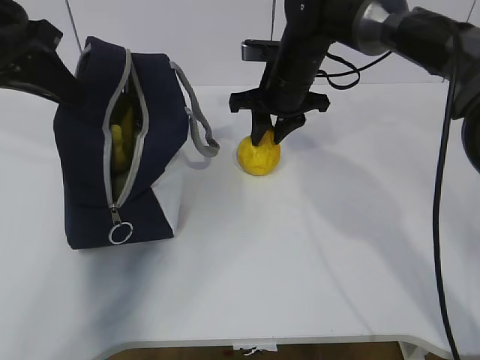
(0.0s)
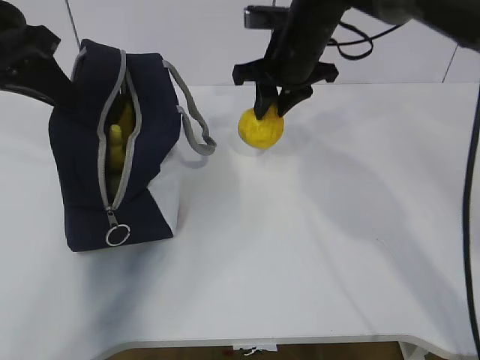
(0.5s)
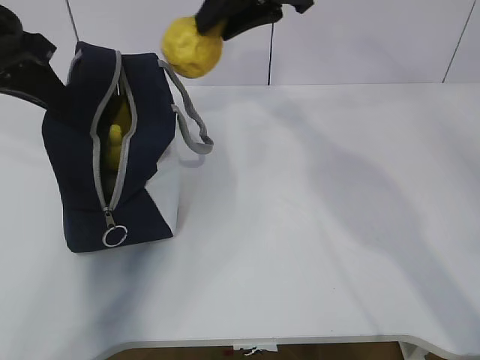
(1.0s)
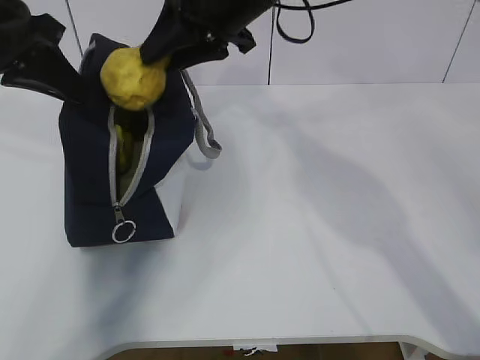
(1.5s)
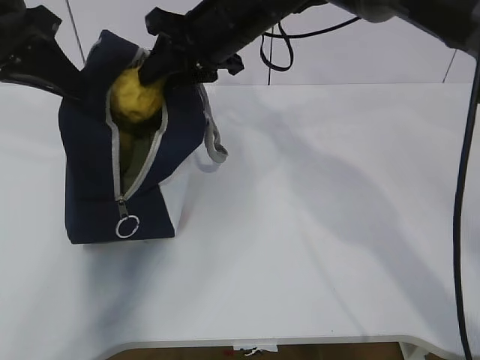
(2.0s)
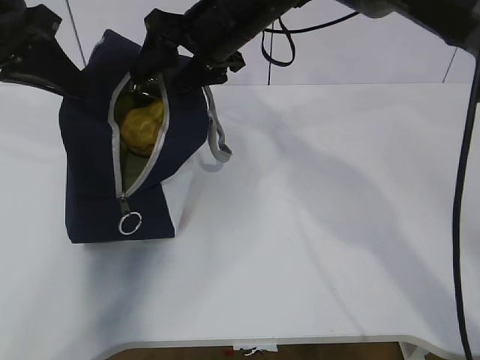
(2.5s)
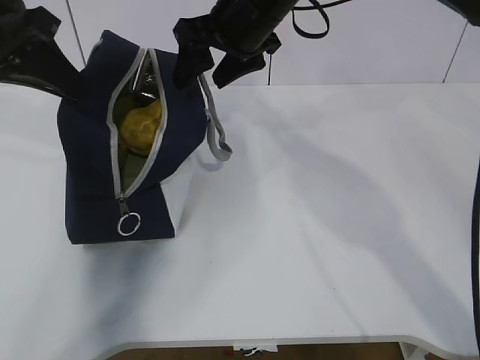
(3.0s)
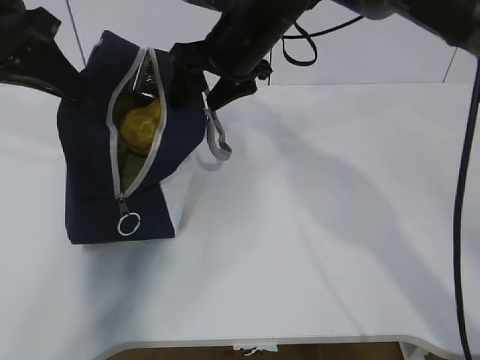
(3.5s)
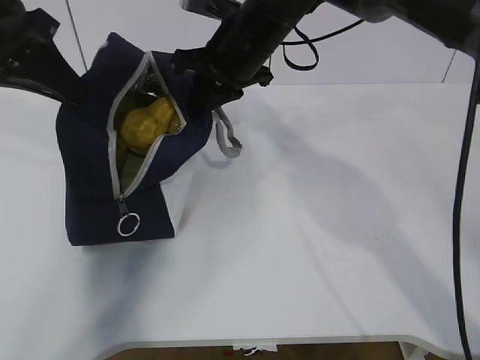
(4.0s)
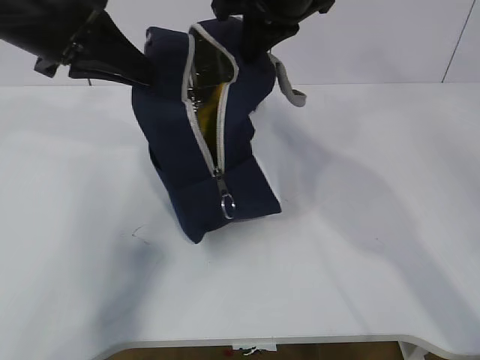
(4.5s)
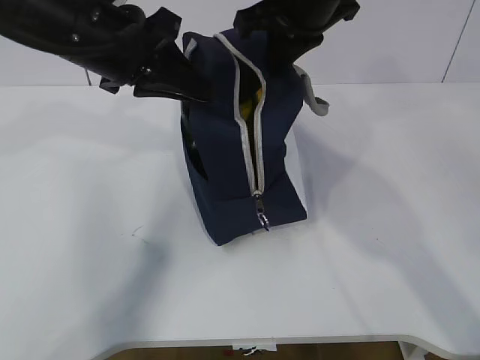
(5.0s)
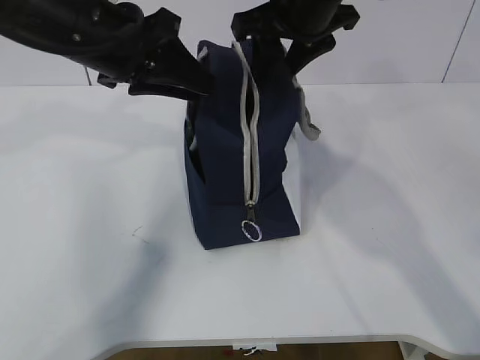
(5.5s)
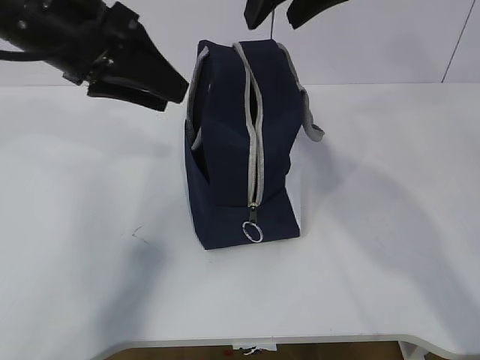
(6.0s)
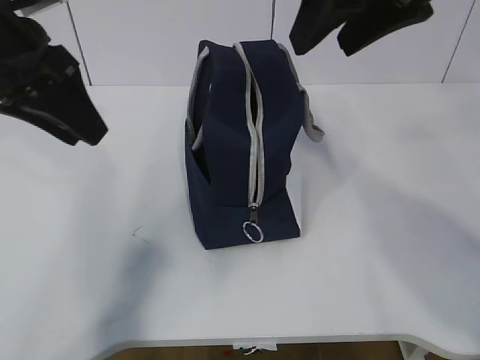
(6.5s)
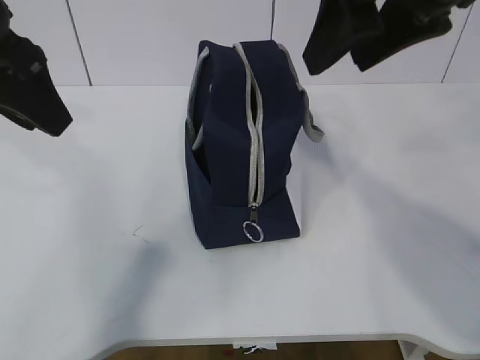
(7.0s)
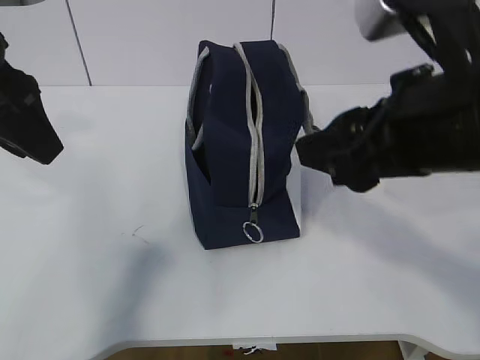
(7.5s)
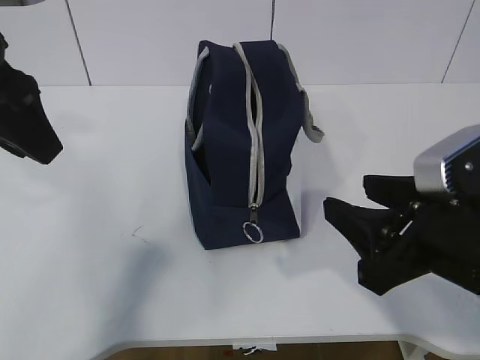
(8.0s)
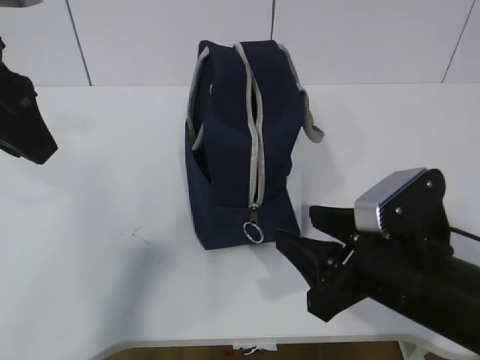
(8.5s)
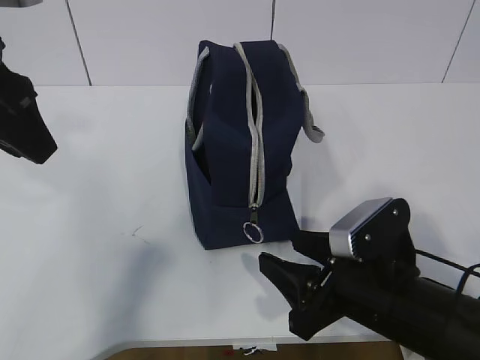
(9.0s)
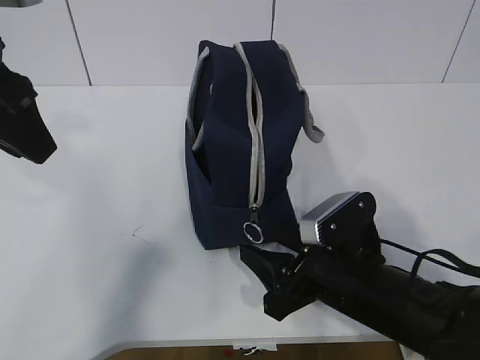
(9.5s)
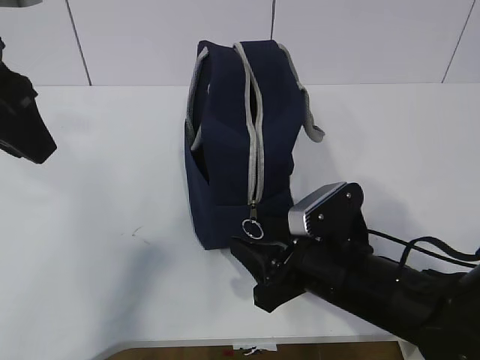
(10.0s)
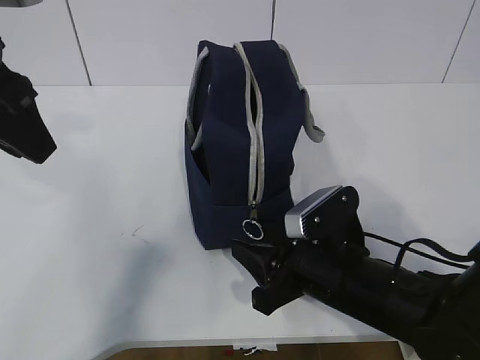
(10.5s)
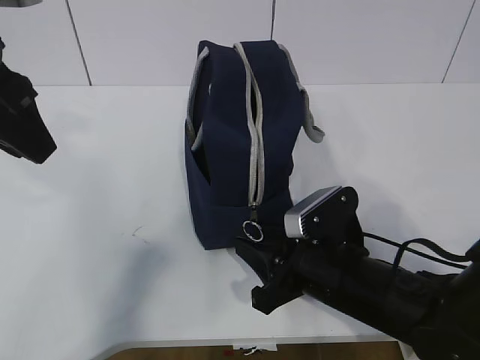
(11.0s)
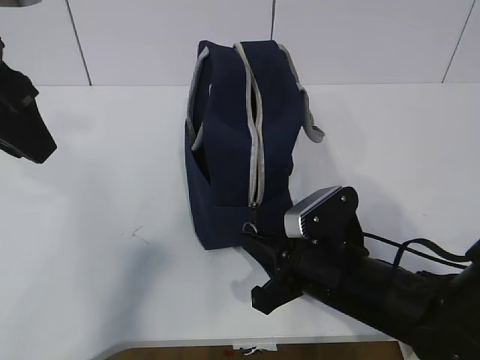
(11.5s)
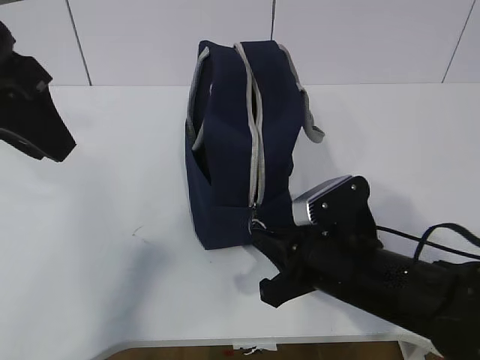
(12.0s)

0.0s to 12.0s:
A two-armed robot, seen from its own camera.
Step, 1.0s to 10.0s: Grab the lunch bag with your left hand.
0.0s to 2.0s: The right gripper is displaced upward and to the left by about 10 cm.
2.0s to 4.0s: The right gripper closes.
4.0s to 6.0s: The right gripper goes roughly 15 cm upward, backward and to the right, and opens. Meanwhile the left gripper goes approximately 5 cm to the right, and opens up.
6.0s to 8.0s: The left gripper travels backward by approximately 5 cm; the right gripper shifts approximately 25 cm downward and backward.
8.0s to 10.0s: The right gripper shifts approximately 15 cm downward, to the left and forward.
10.0s to 12.0s: The right gripper closes its fingers.

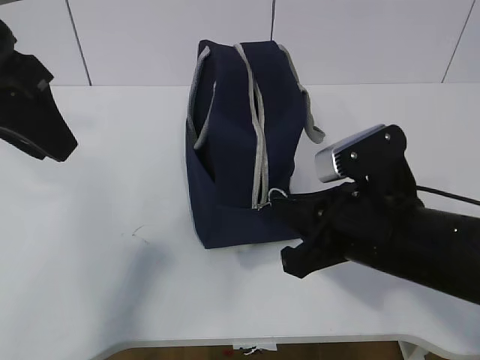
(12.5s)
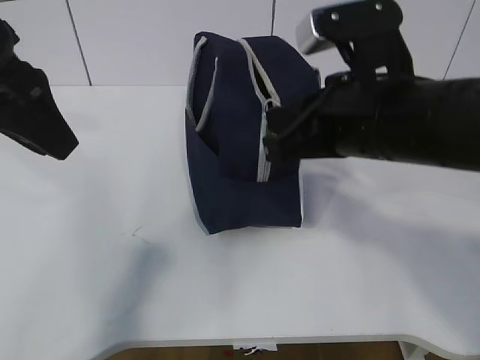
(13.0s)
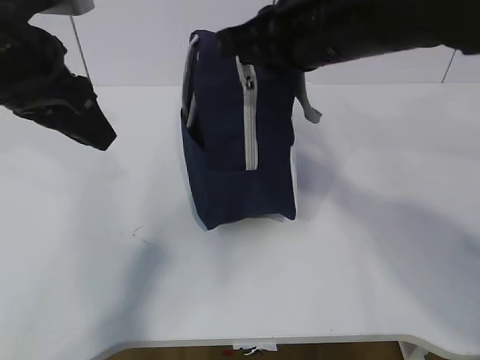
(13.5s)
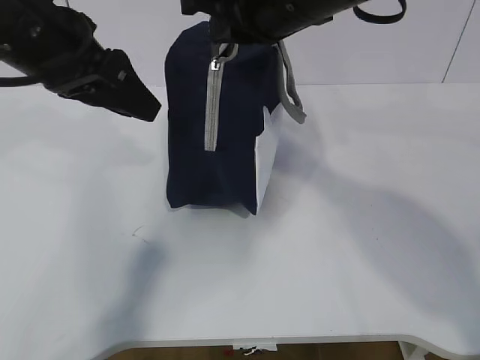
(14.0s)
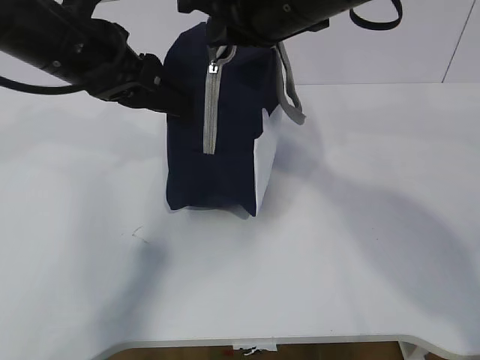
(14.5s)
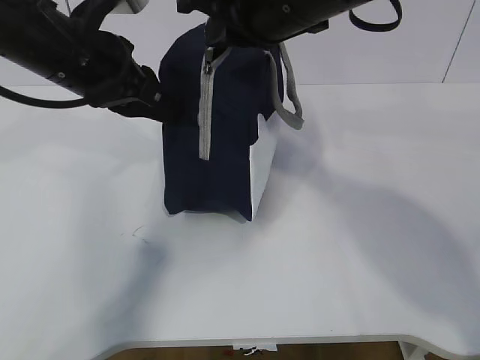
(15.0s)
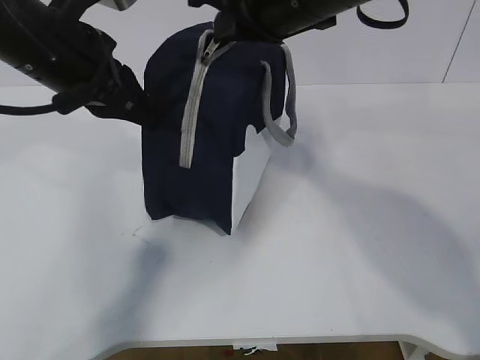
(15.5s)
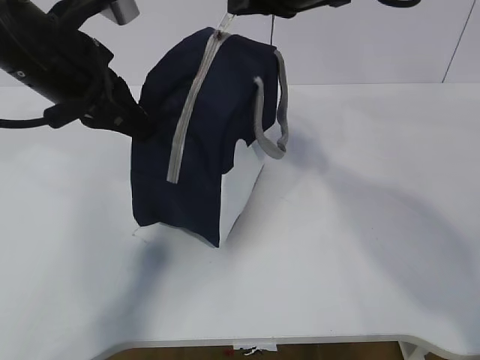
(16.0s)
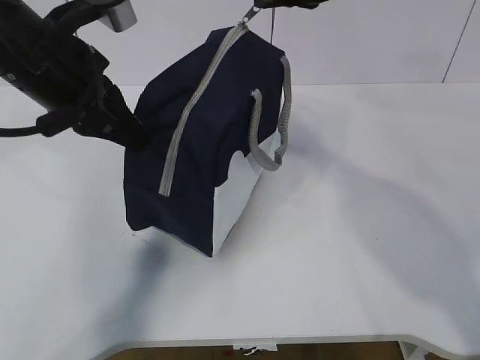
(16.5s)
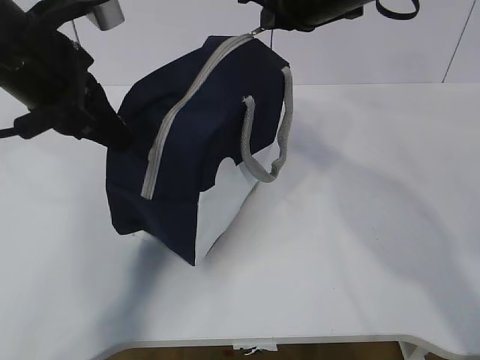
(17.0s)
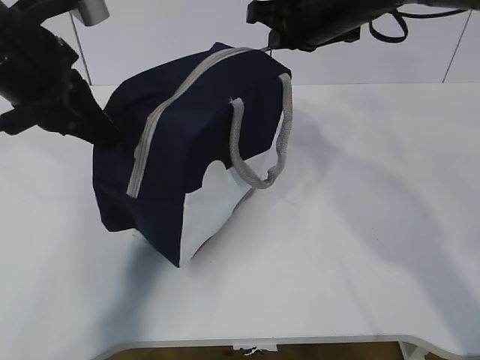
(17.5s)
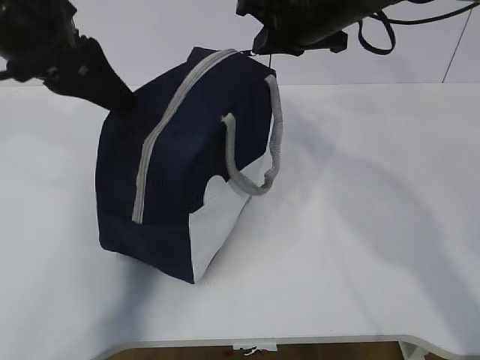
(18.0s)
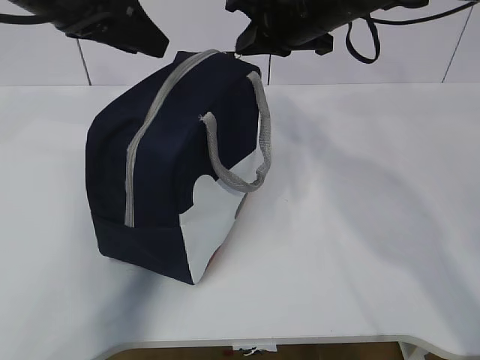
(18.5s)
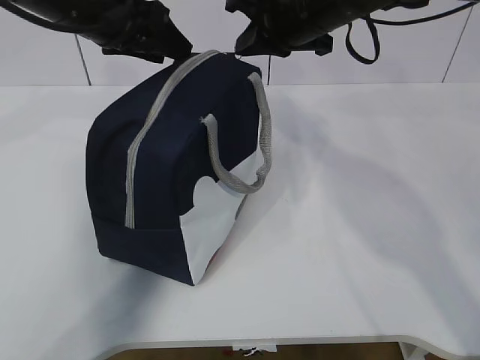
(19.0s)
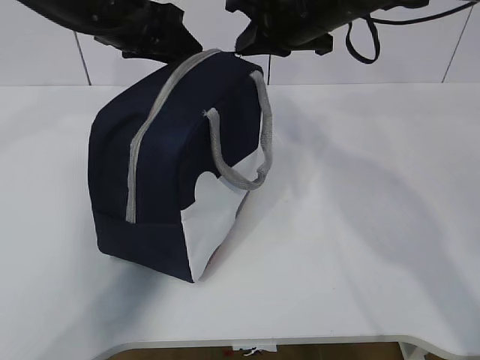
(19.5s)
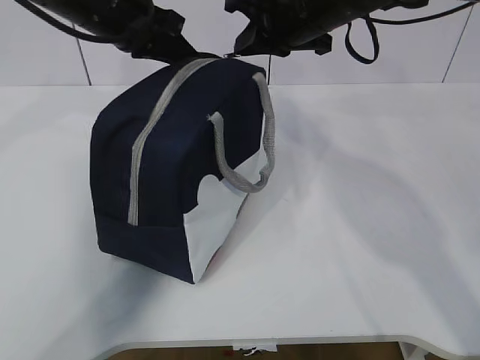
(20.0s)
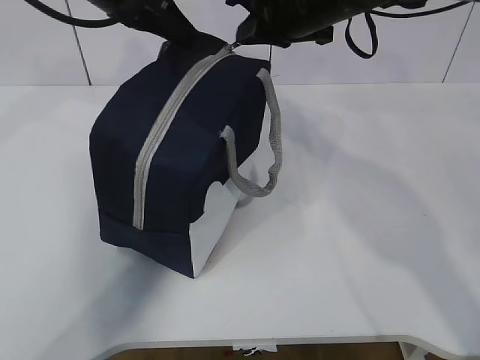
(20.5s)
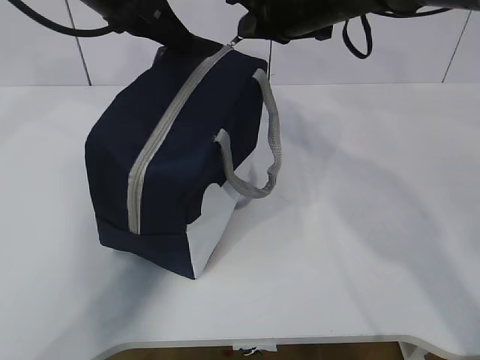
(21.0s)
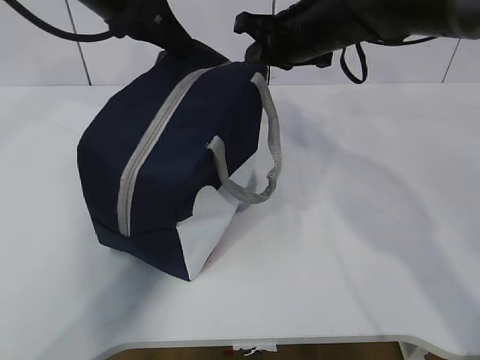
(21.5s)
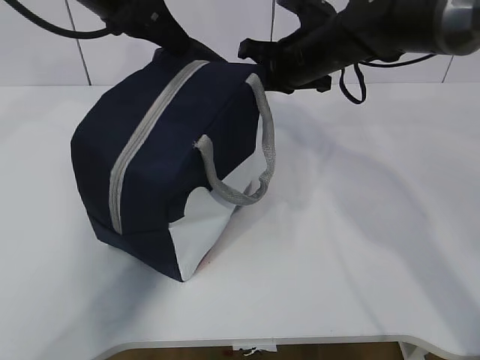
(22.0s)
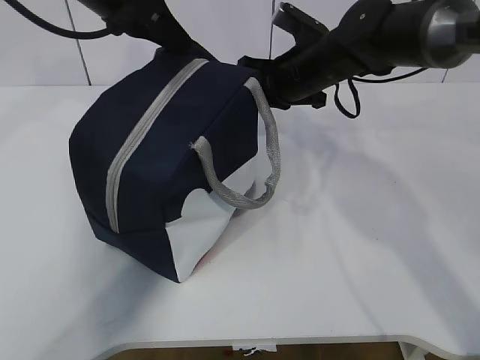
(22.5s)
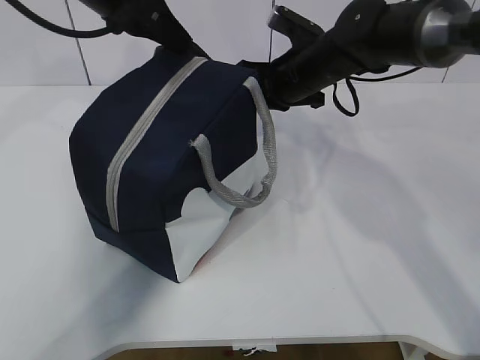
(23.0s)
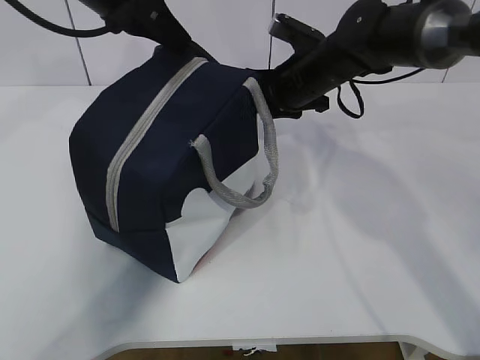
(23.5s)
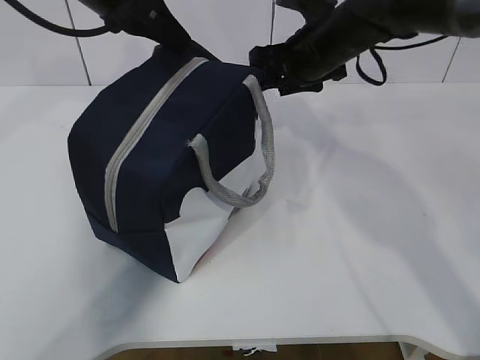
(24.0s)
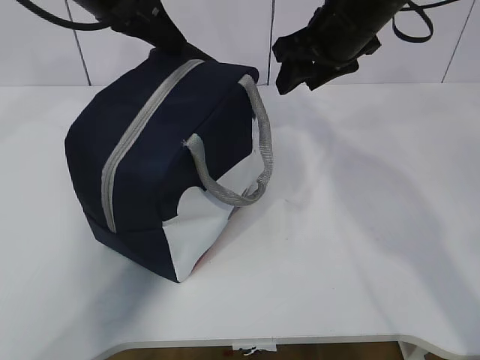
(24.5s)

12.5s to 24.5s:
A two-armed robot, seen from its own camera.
Step, 12.5s to 15.0s: Pull the zipper with your right hand.
Step, 15.5s to 16.0s: Grab the lunch bag with your left hand.
12.5s to 14.5s: The right gripper is displaced upward, forward and to the left by about 20 cm; the left gripper moves forward and downward, roughly 10 cm.
14.5s to 16.5s: The left gripper closes up. Meanwhile the right gripper moves some 5 cm.
16.5s to 18.5s: The left gripper shifts roughly 5 cm upward, and opens up, while the right gripper travels downward and forward by about 10 cm.
18.5s to 20.5s: The left gripper is displaced forward by approximately 5 cm, and closes its fingers.
20.5s to 22.5s: The right gripper travels downward by approximately 10 cm.
22.5s to 24.5s: The right gripper is displaced upward by about 10 cm, and opens up.

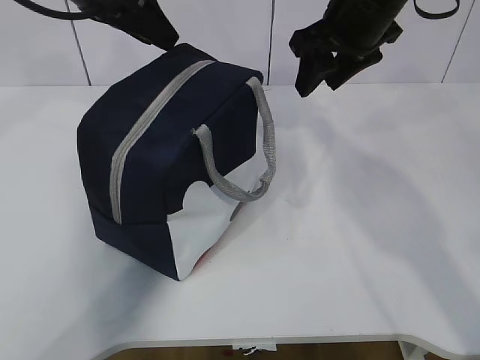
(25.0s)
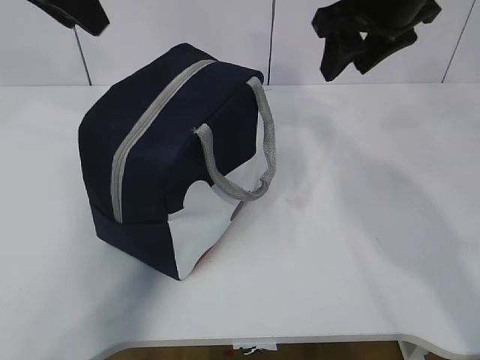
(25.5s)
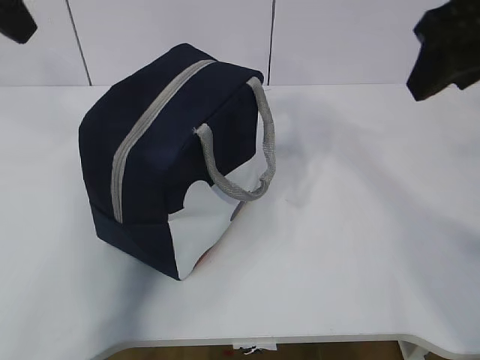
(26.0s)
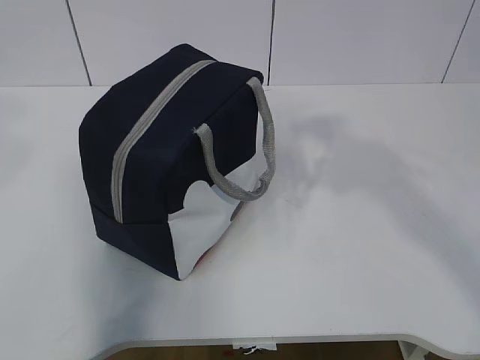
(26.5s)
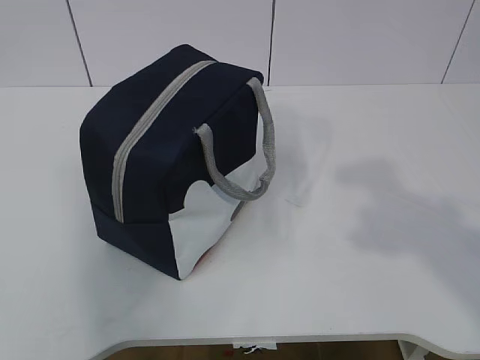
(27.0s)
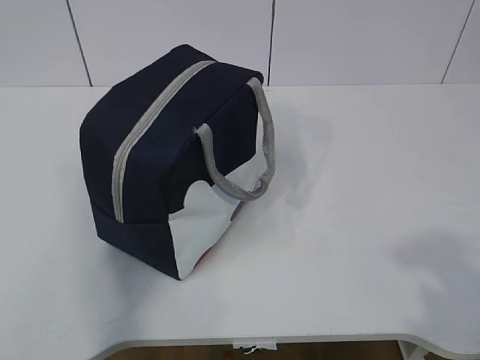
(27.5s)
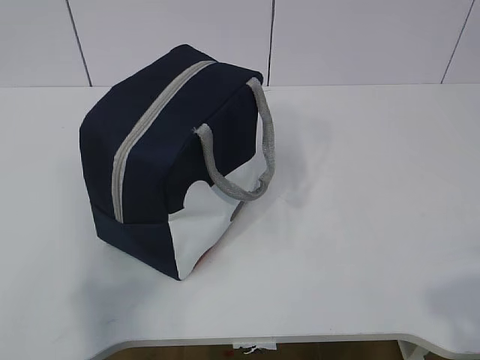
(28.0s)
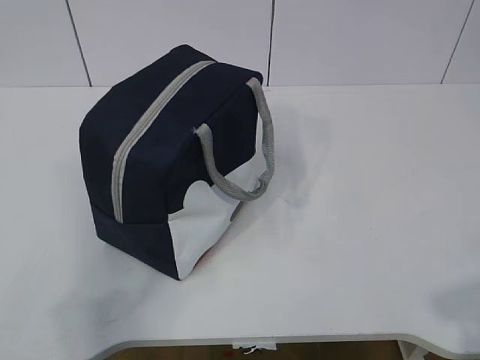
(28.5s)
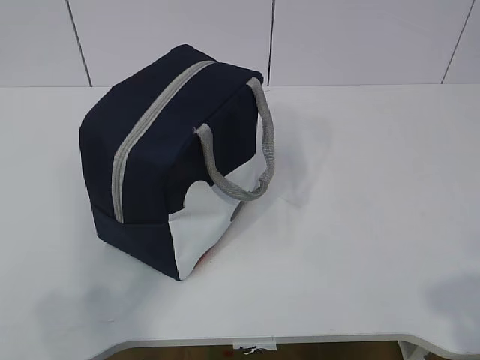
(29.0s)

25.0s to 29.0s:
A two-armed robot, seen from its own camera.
25.0s to 27.0s: The grippers both shift backward by approximately 35 cm.
